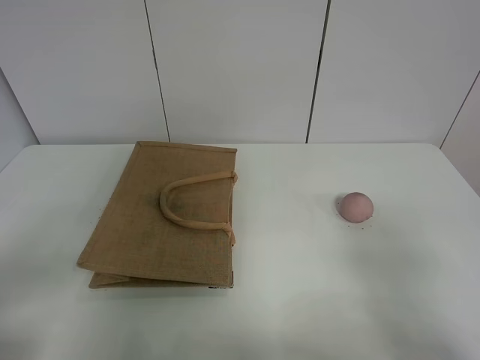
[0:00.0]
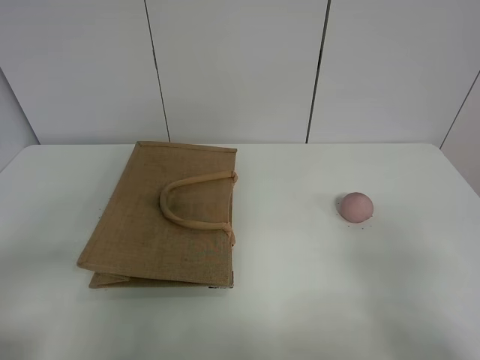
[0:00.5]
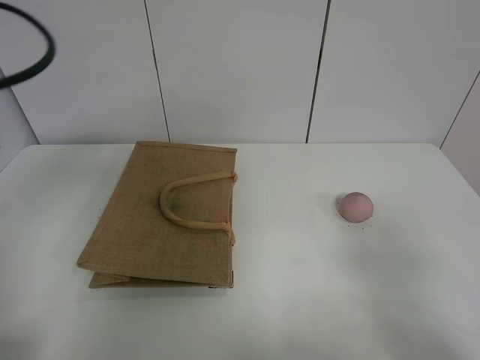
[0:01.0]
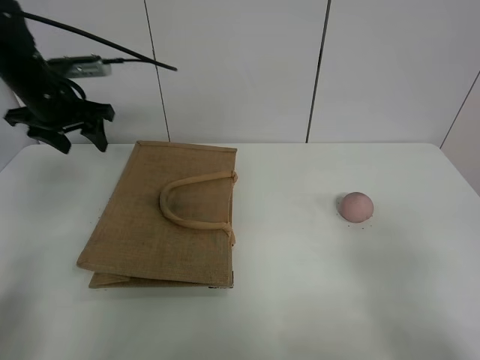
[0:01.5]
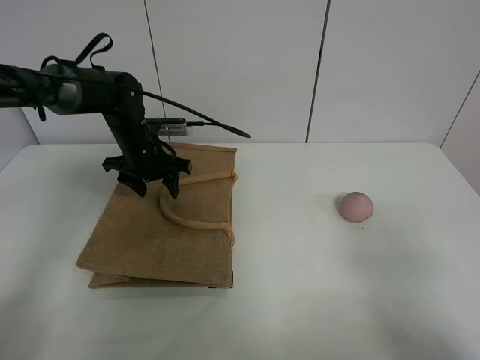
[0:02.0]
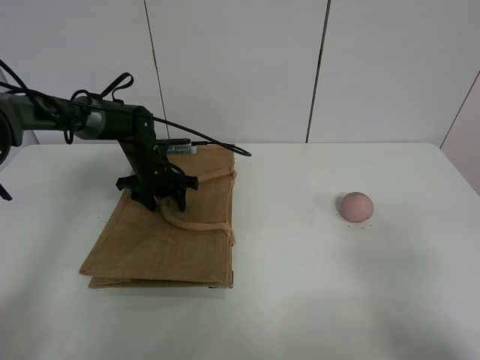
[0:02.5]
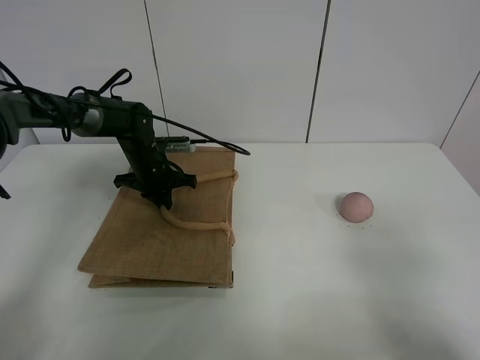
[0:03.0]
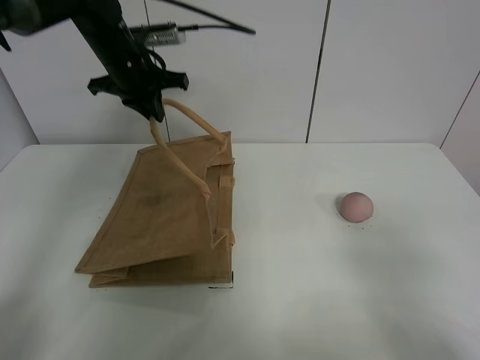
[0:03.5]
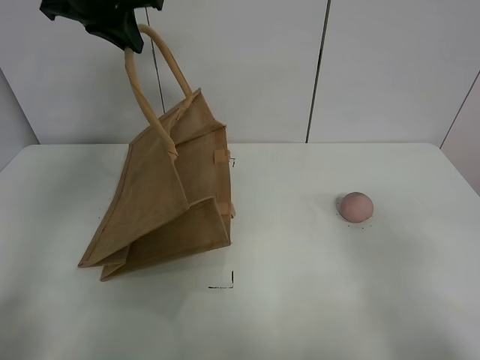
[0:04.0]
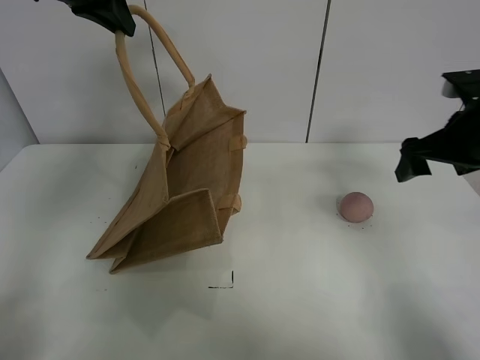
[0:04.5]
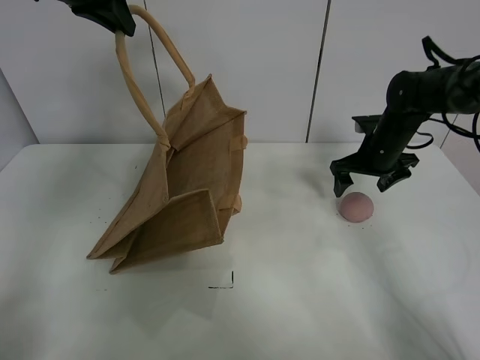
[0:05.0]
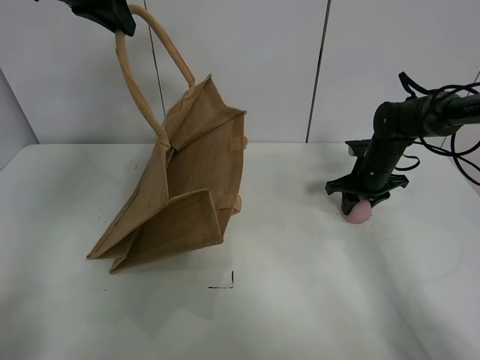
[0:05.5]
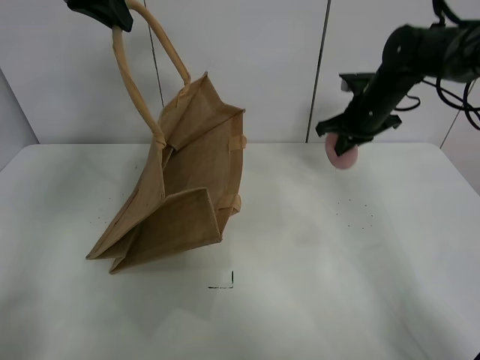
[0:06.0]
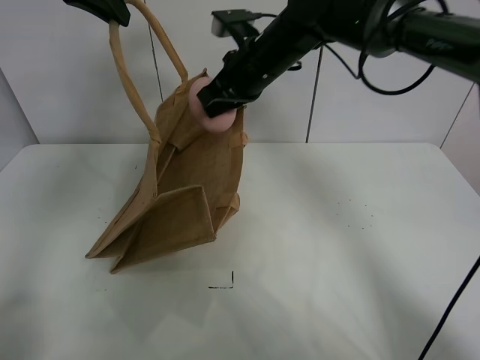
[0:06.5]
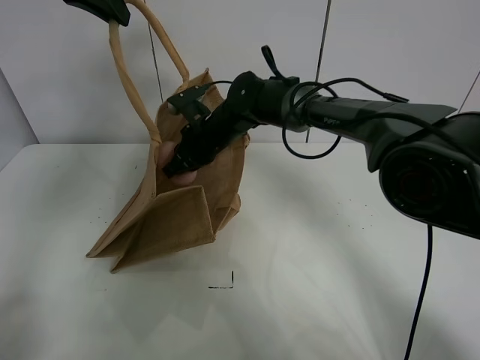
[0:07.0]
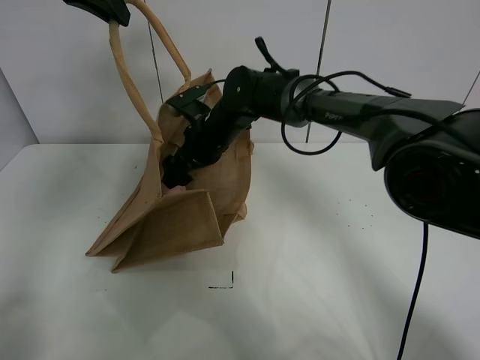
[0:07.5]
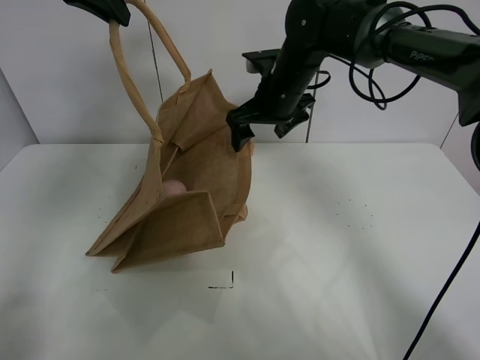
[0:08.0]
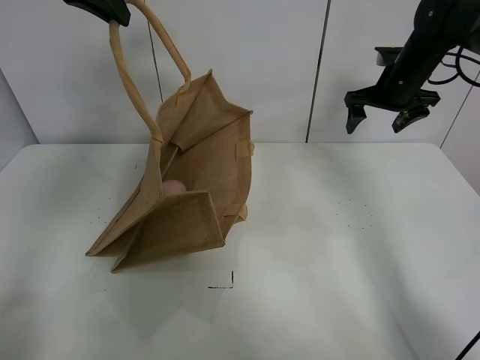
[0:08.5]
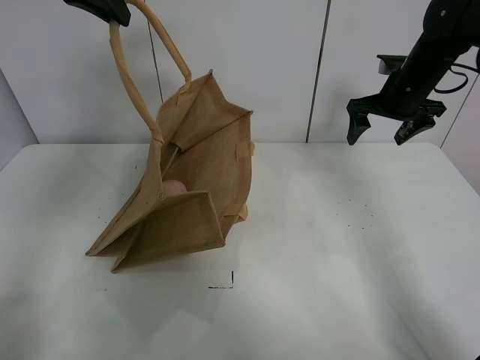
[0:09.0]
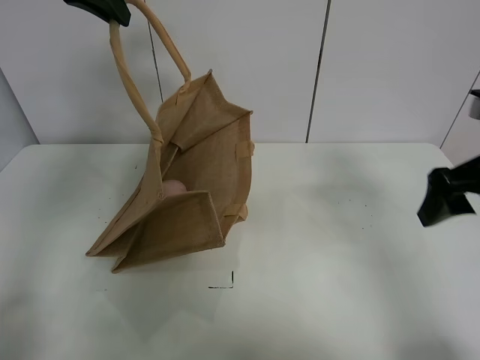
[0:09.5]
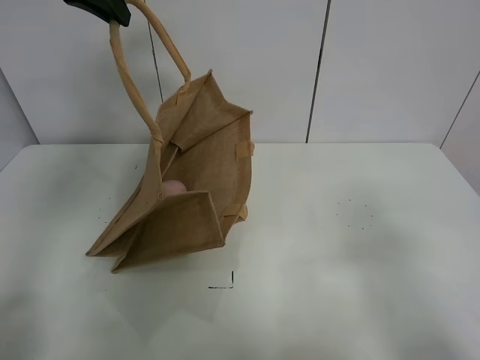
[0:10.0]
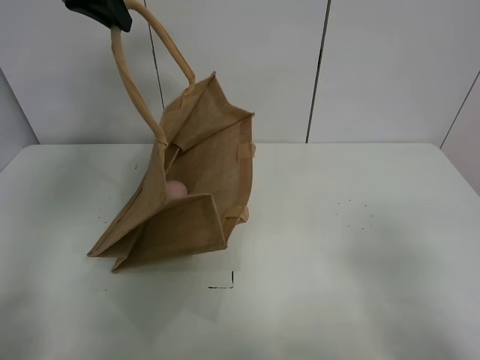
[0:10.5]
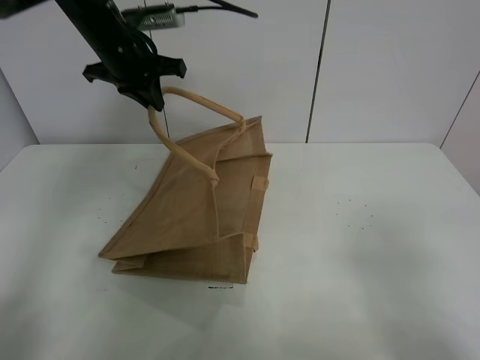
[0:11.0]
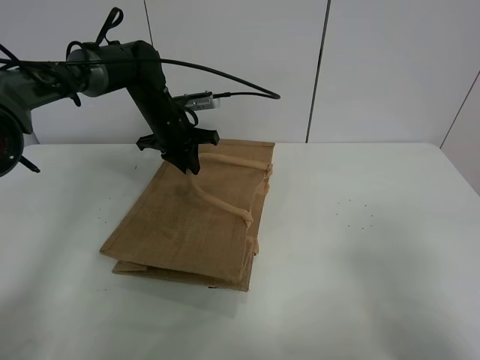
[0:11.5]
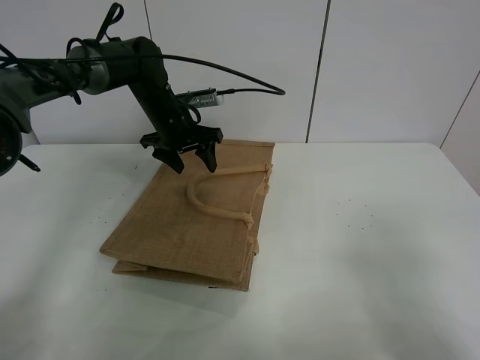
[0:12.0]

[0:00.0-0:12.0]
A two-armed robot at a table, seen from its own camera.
Task of the whole recording: open the brown linen bag and put the peach in the bag.
Step, 0:00.0 to 0:04.0: Lift the handbag with left gripper.
Step, 0:04.5 to 0:05.5: Grasp the peach with right gripper.
Step, 0:06.0 to 0:08.0: Place the peach in the handbag with right gripper.
0:00.0 to 0:02.0: The left gripper goes approximately 40 cm forward.
0:02.0 to 0:04.0: The left gripper moves upward, about 25 cm, and closes up.
0:04.0 to 0:06.0: The right gripper goes approximately 40 cm forward, and closes up.
0:06.0 to 0:08.0: The right gripper shifts roughly 15 cm to the left, and opens its fingers.
0:08.0 to 0:10.0: The right gripper goes approximately 40 cm backward and to the right.
0:10.0 to 0:12.0: The left gripper is displaced downward by approximately 25 cm, and opens.

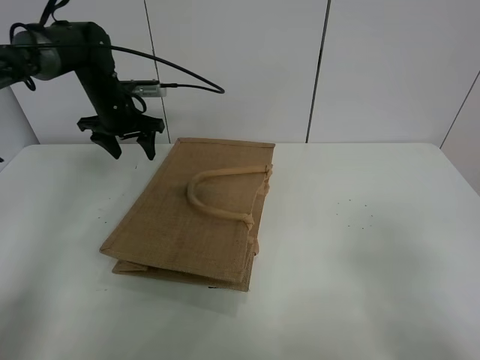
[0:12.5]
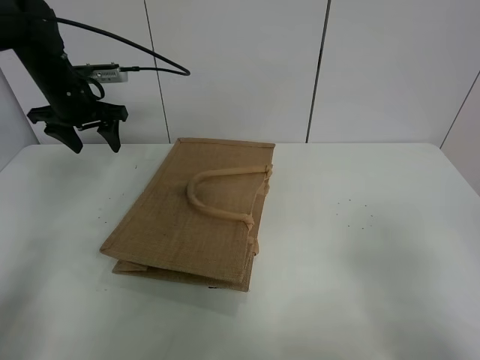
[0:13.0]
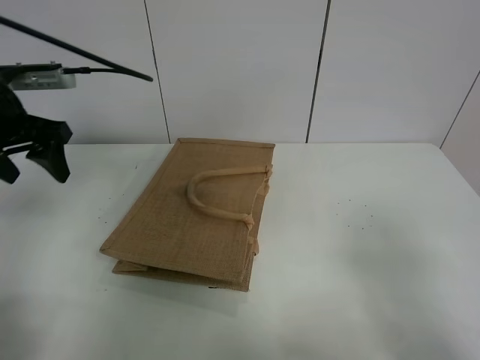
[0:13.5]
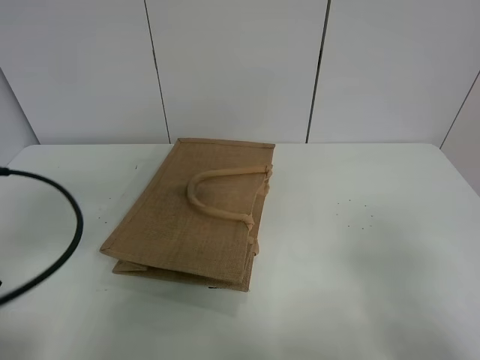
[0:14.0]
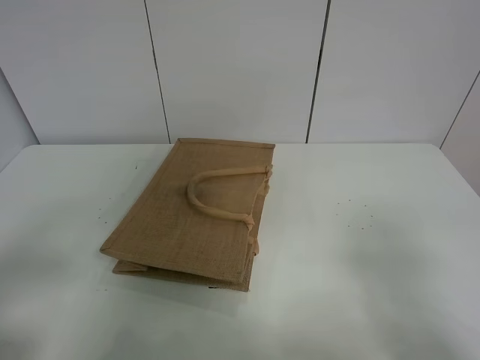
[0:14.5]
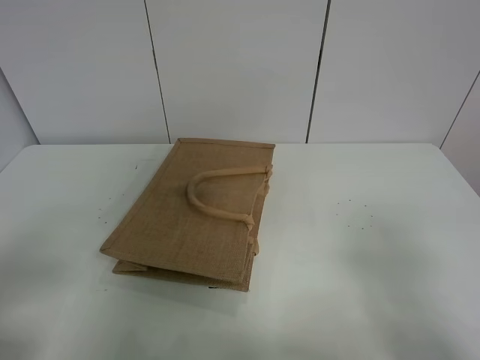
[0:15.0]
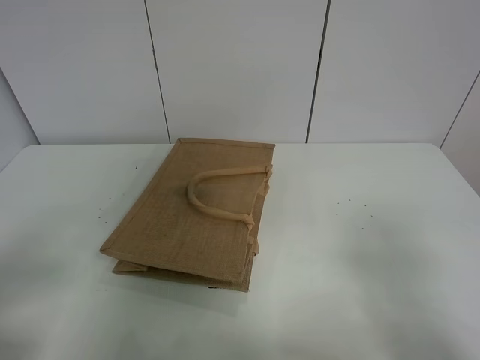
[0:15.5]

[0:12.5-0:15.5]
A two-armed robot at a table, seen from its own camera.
Task of the whole recording: open the brown linen bag and put the peach in the bag.
0:12.5 to 0:14.0: The left gripper is displaced backward by roughly 35 cm.
0:14.0 to 0:15.5: The left gripper travels backward by some 10 cm.
